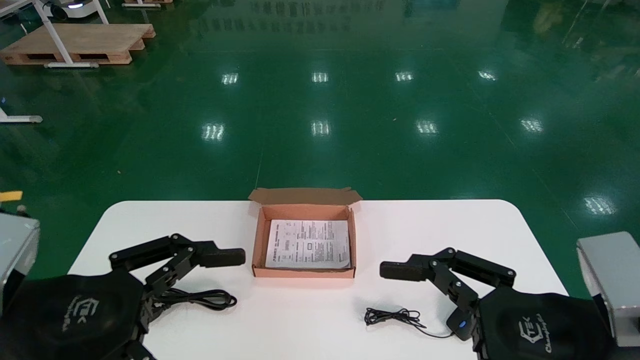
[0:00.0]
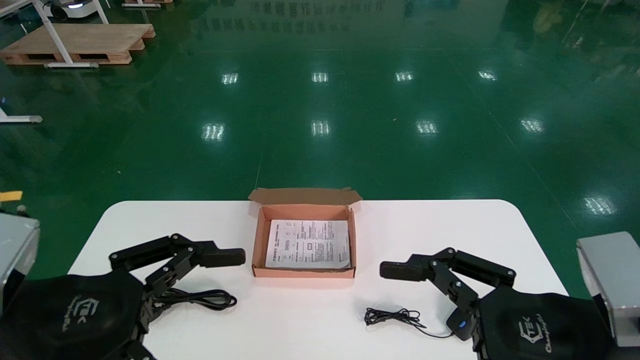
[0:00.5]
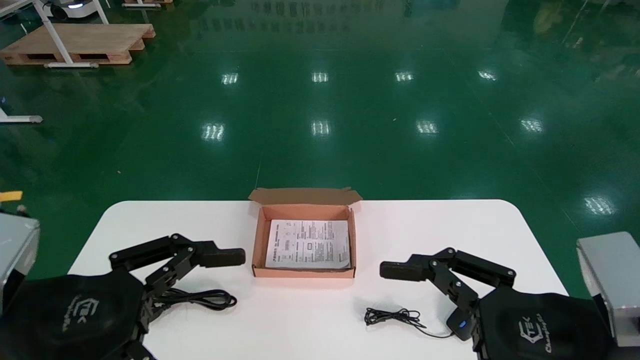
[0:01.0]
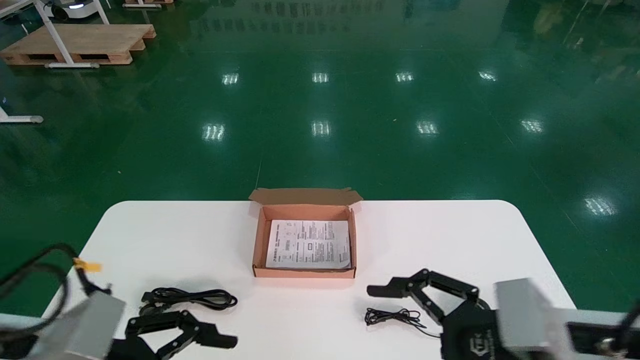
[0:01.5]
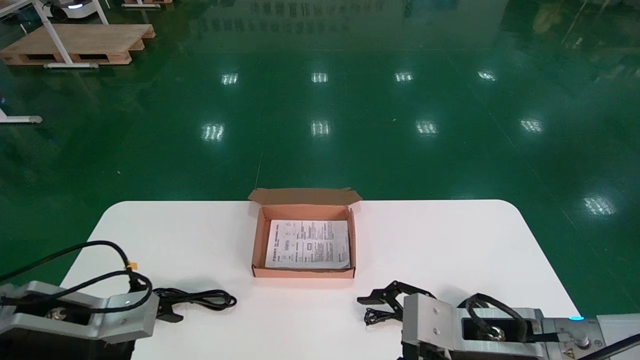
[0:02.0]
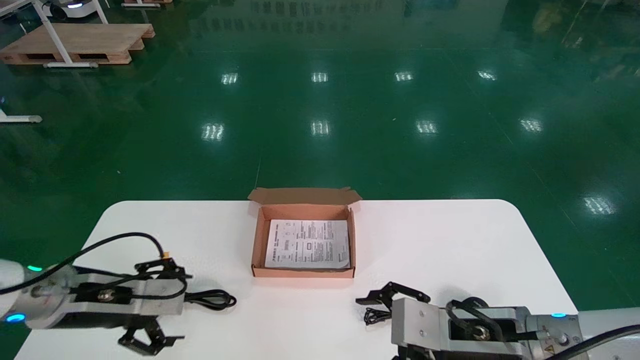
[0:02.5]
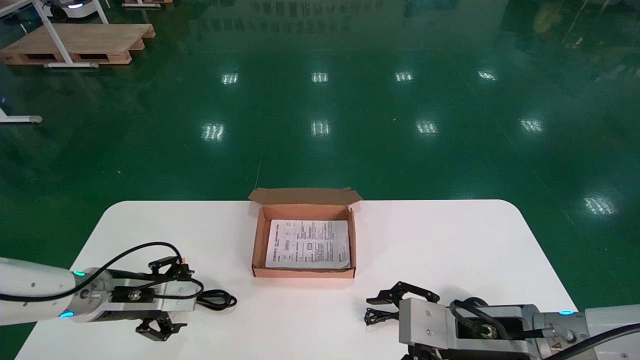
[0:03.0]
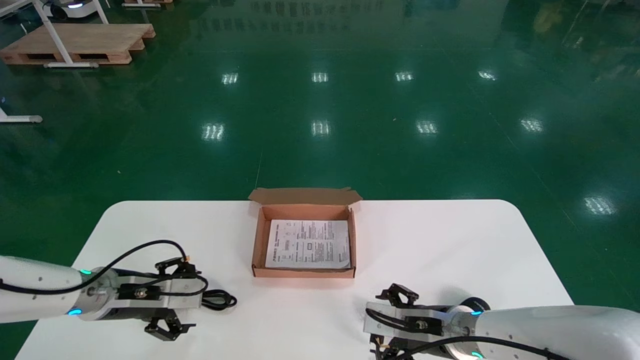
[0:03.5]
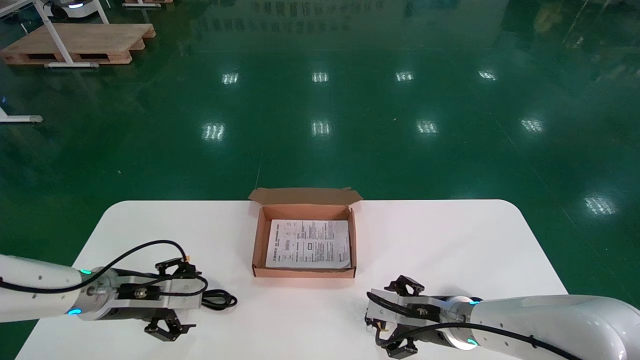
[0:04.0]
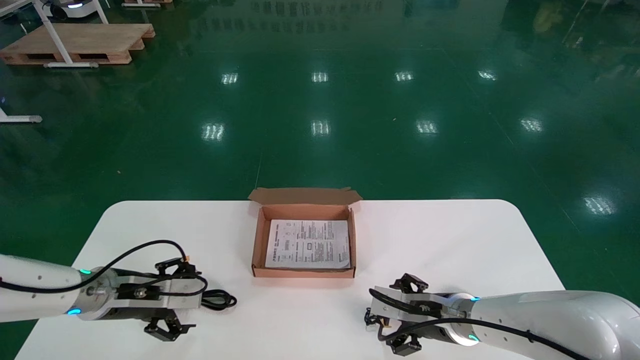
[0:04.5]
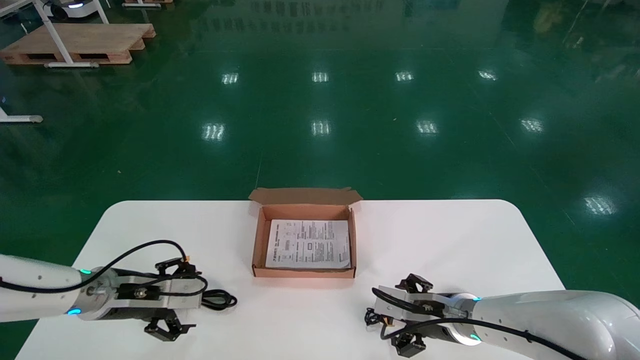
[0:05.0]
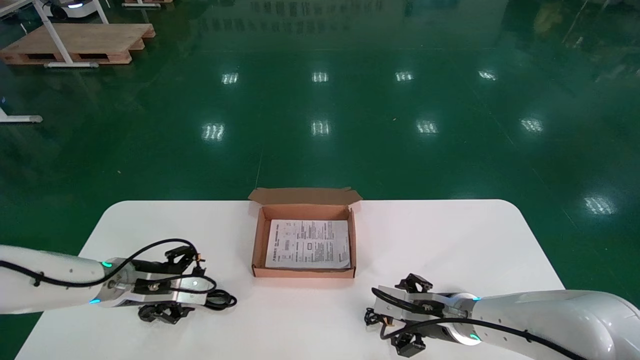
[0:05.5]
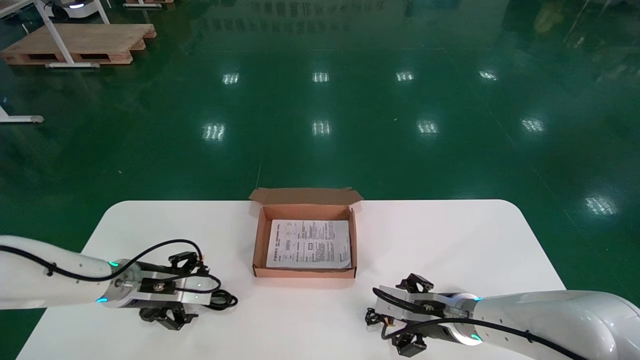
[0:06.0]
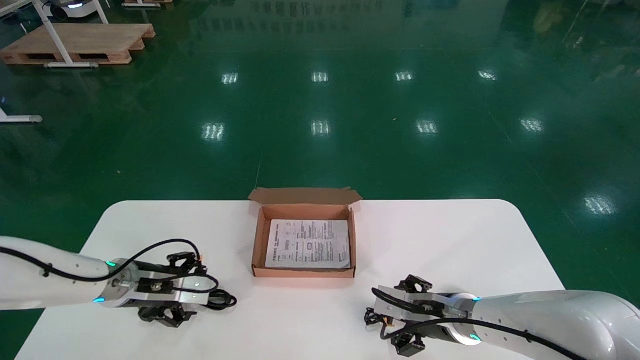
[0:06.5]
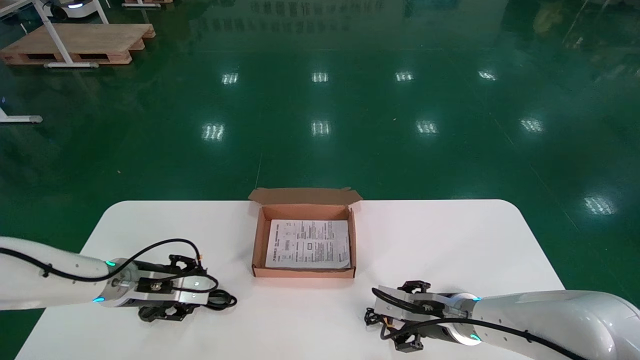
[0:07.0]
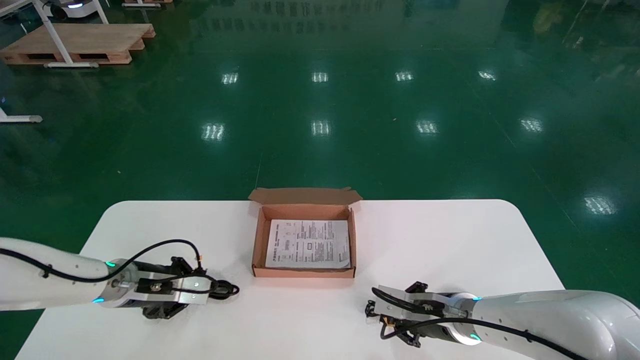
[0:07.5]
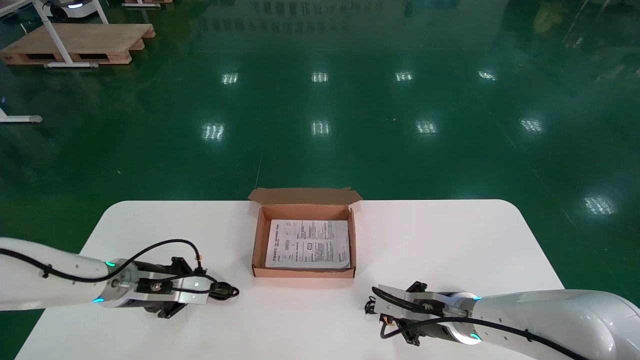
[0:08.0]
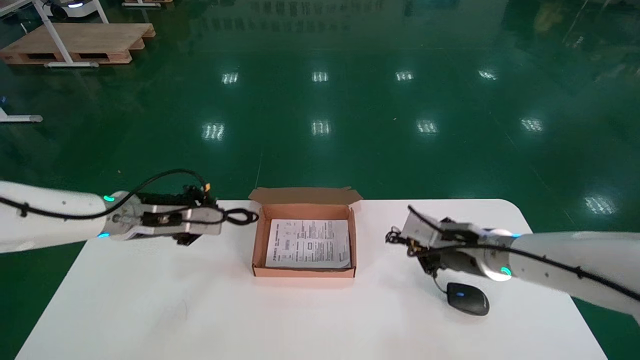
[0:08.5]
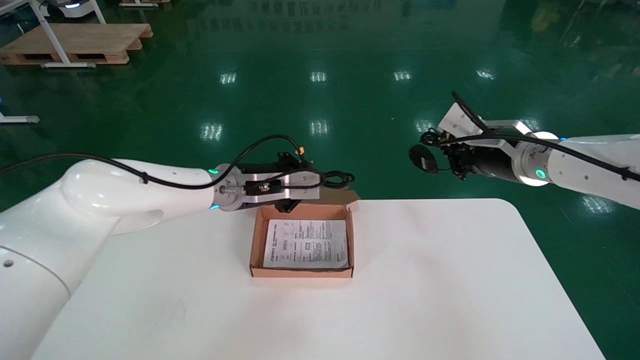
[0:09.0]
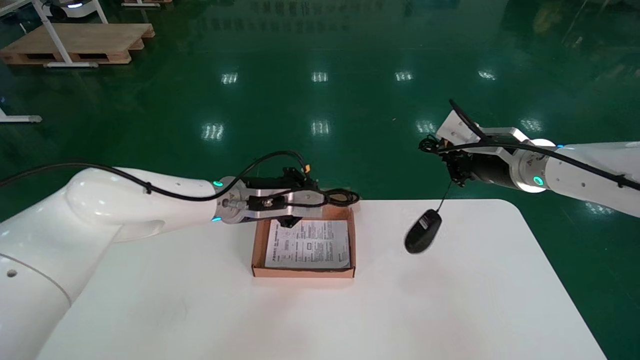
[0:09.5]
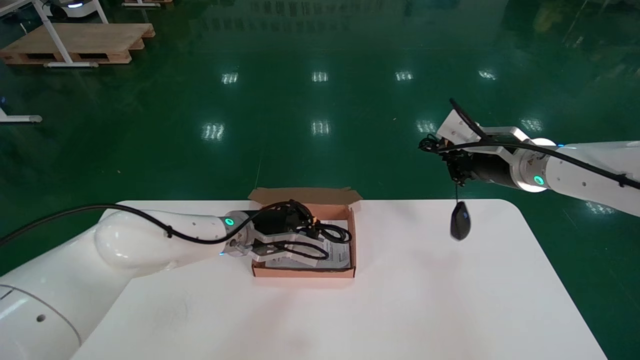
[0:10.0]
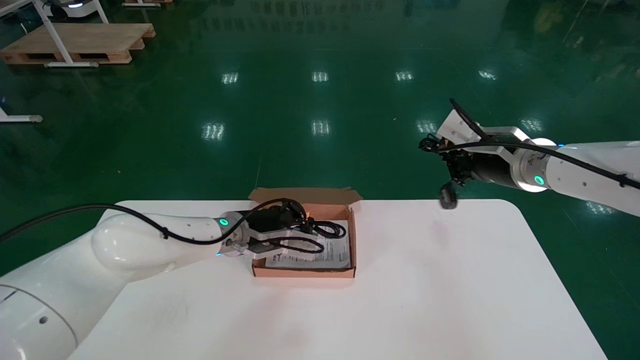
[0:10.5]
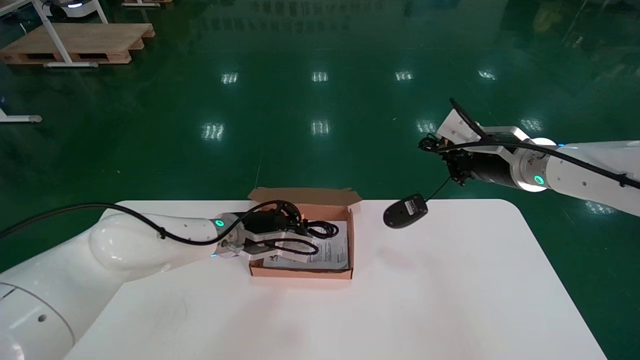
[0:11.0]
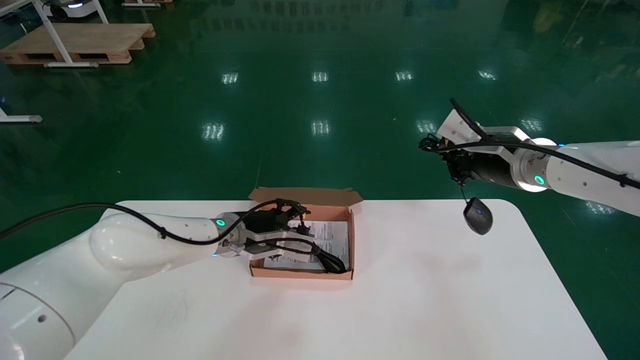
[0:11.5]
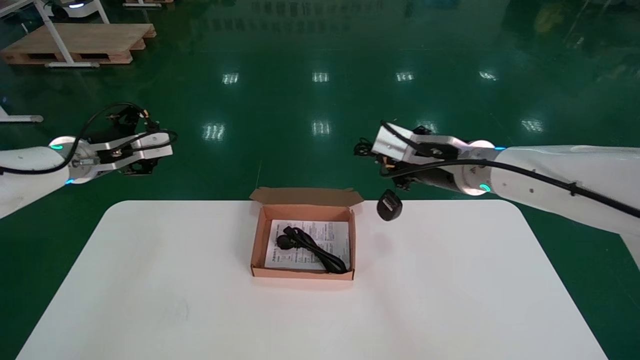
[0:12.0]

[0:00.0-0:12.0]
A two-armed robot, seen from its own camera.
Step, 0:02.0 to 0:08.5: Simultaneously pick up the mouse and power cord from the accessory packaging area.
0:00.0 to 0:02.0: The left gripper shifts some 10 cm forward. The right gripper is displaced forward and downward by roughly 10 cm.
0:02.0 to 0:04.0: The grippers both shift forward and downward by roughly 15 cm.
0:04.0 to 0:06.0: The grippers make only small movements.
0:06.0 to 0:08.0: The right gripper closes its fingers; the left gripper closes up.
0:08.0 to 0:10.0: The right gripper travels upward by some 25 cm. Meanwhile the left gripper shifts roughly 20 cm to the right.
0:10.0 to 0:12.0: The left gripper goes roughly 20 cm to the left and upward, and opens up, while the right gripper travels to the left by some 10 cm.

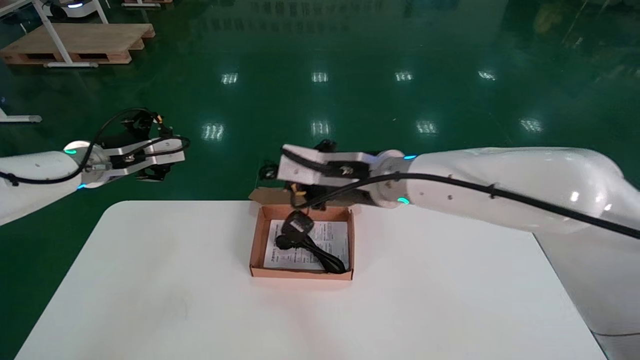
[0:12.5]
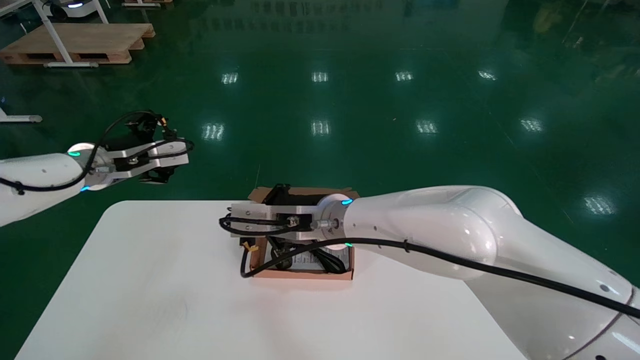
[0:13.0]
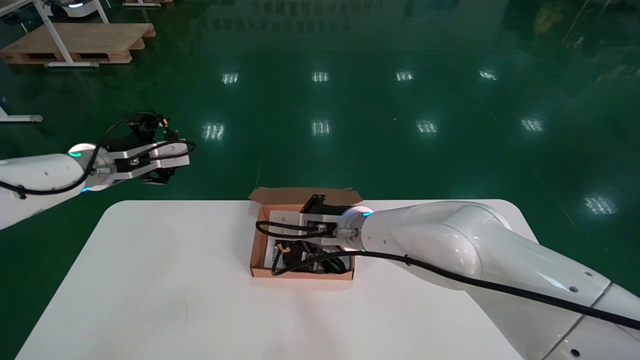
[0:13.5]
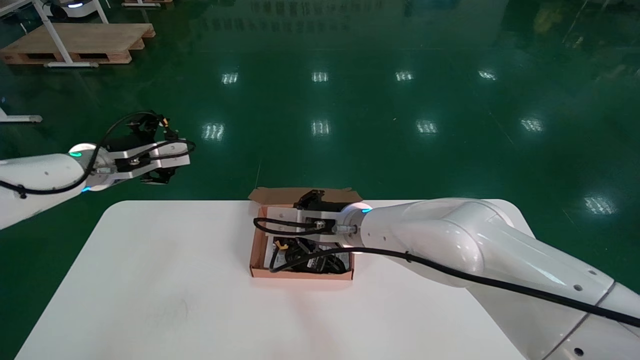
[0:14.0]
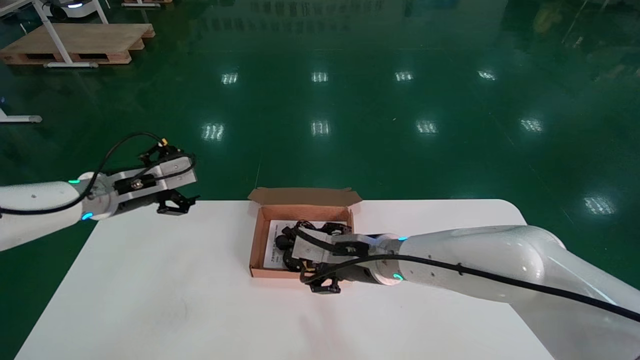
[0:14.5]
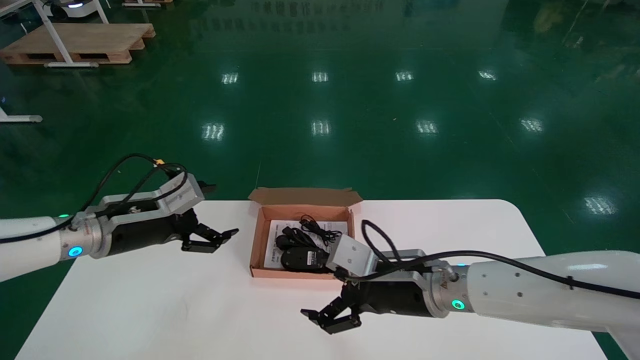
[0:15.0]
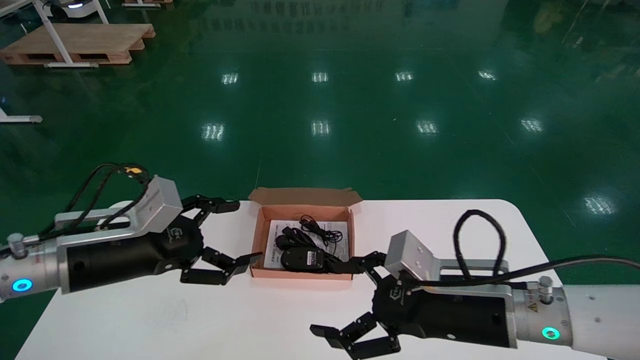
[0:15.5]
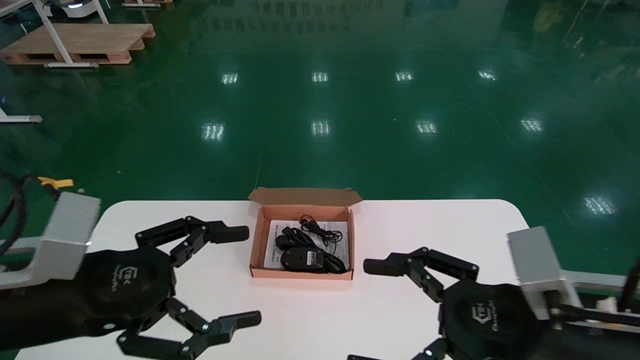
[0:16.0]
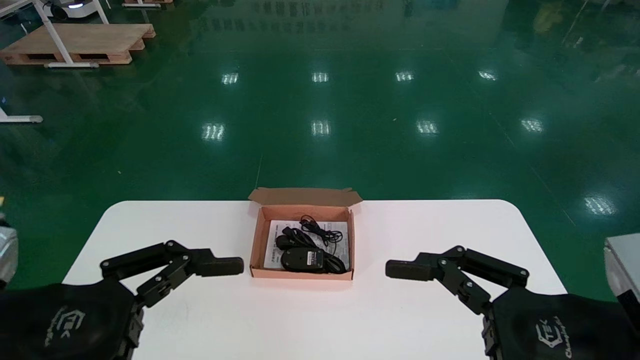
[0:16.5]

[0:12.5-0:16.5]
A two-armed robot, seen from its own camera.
0:12.5 to 0:14.5: The right gripper goes some 10 cm downward, and opens up; the left gripper moves roughly 5 cm.
0:14.5 to 0:16.5: The right gripper moves backward and to the right, some 30 cm, and opens. The left gripper travels backward by roughly 30 cm.
